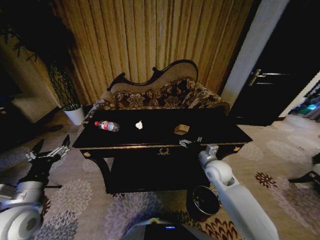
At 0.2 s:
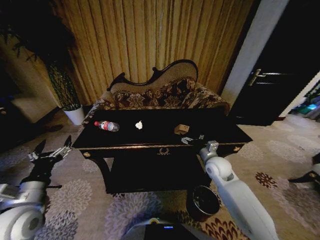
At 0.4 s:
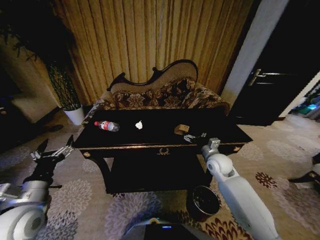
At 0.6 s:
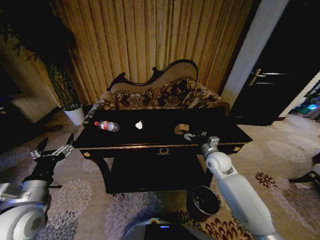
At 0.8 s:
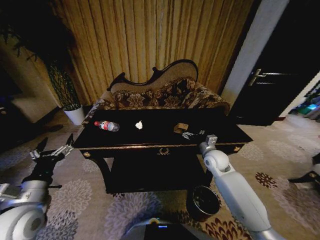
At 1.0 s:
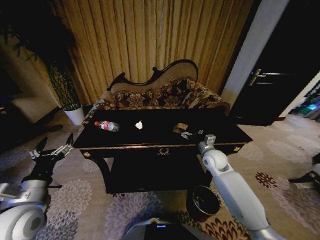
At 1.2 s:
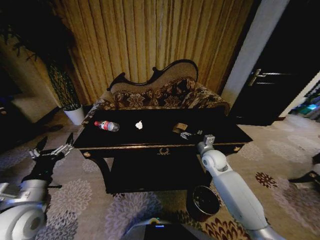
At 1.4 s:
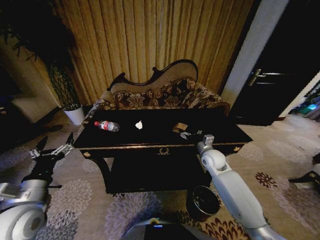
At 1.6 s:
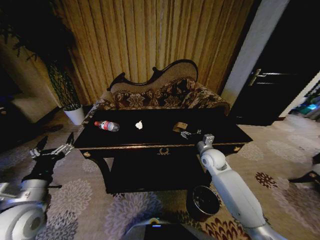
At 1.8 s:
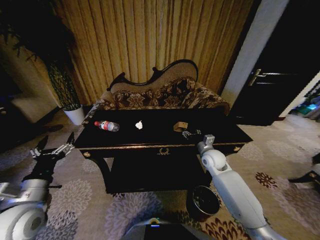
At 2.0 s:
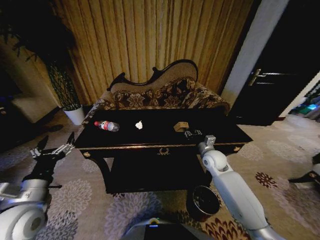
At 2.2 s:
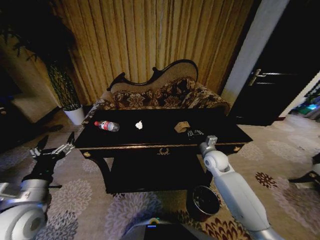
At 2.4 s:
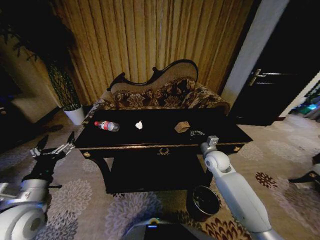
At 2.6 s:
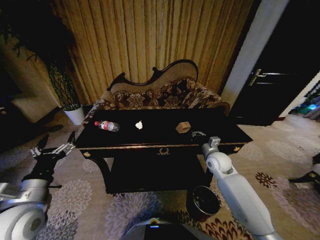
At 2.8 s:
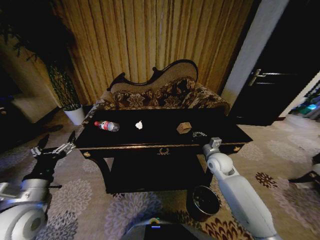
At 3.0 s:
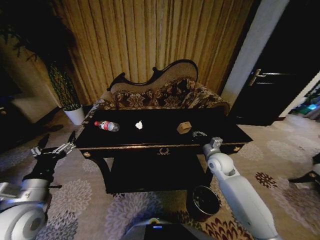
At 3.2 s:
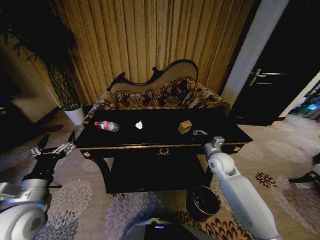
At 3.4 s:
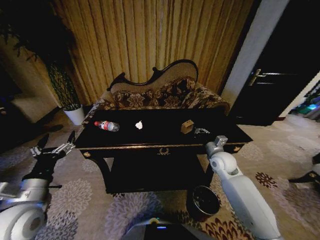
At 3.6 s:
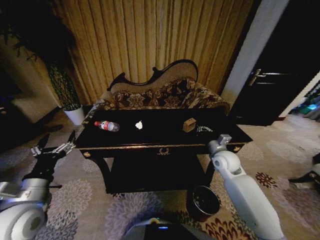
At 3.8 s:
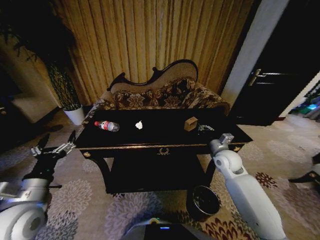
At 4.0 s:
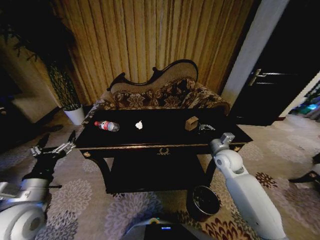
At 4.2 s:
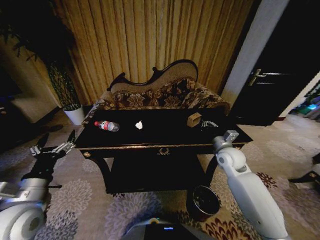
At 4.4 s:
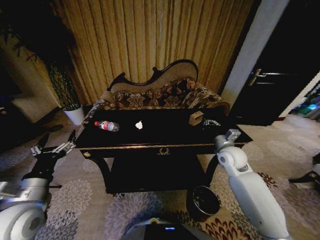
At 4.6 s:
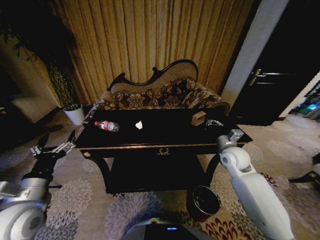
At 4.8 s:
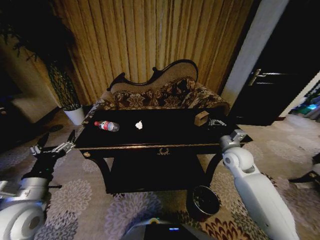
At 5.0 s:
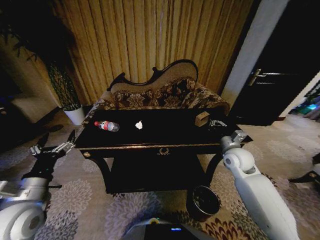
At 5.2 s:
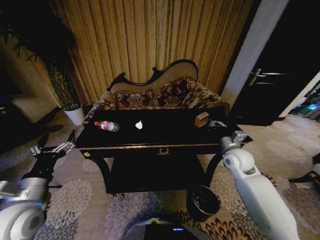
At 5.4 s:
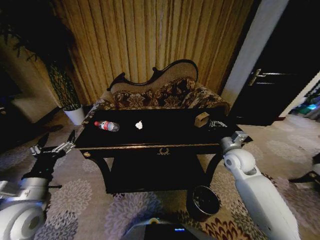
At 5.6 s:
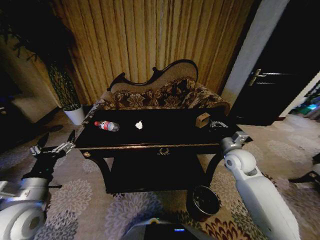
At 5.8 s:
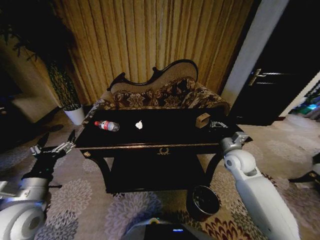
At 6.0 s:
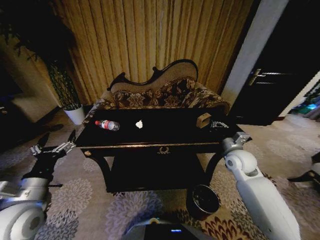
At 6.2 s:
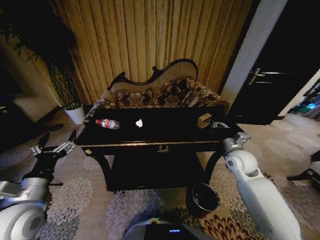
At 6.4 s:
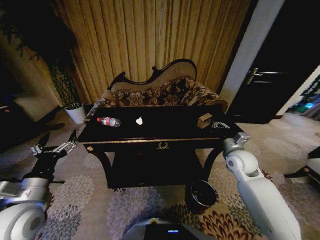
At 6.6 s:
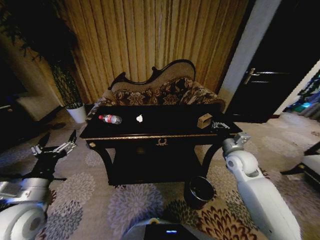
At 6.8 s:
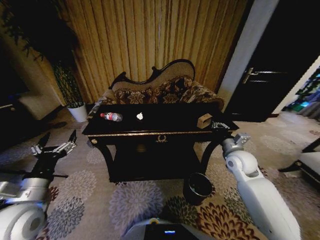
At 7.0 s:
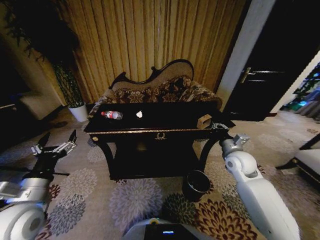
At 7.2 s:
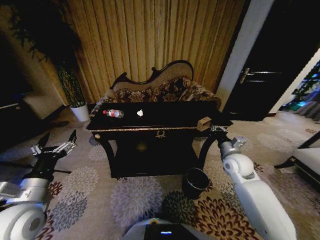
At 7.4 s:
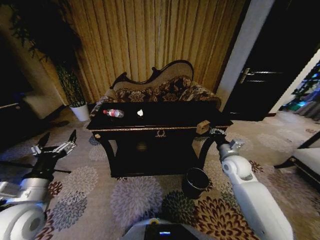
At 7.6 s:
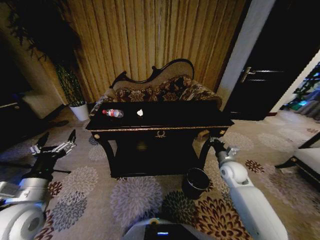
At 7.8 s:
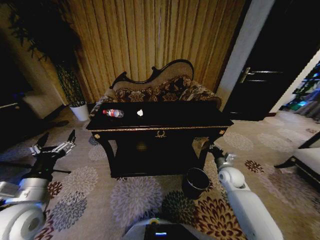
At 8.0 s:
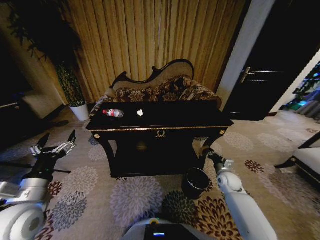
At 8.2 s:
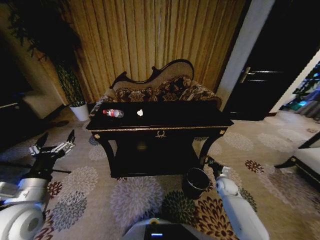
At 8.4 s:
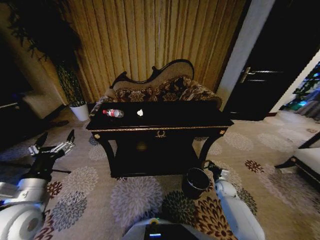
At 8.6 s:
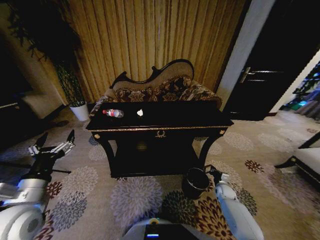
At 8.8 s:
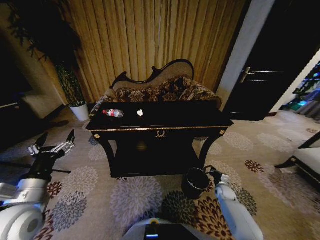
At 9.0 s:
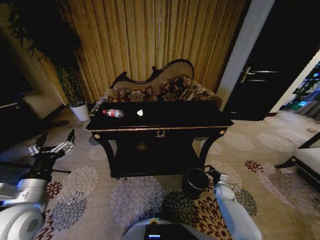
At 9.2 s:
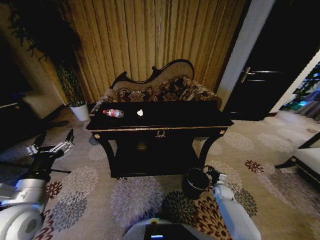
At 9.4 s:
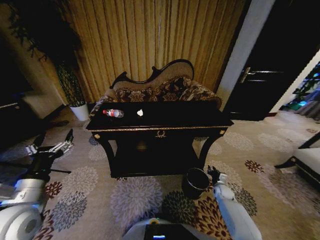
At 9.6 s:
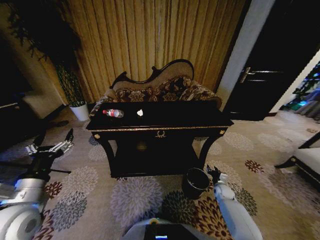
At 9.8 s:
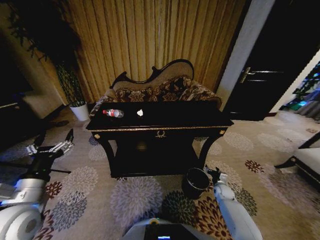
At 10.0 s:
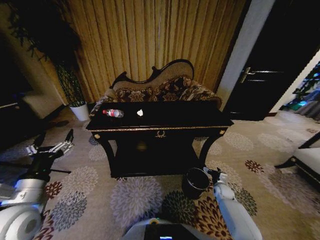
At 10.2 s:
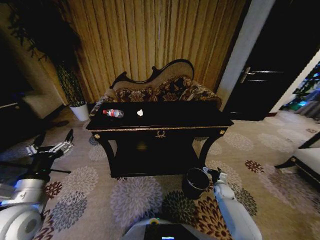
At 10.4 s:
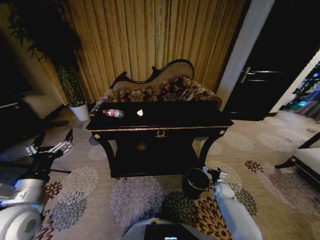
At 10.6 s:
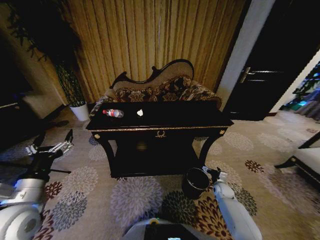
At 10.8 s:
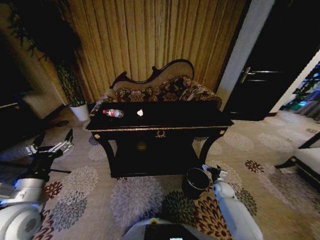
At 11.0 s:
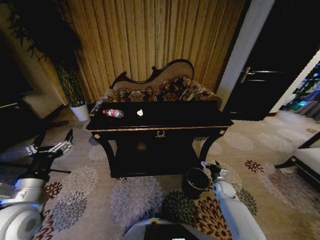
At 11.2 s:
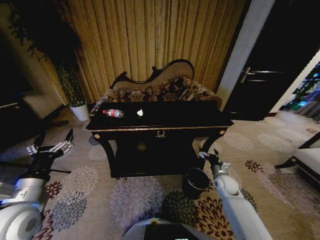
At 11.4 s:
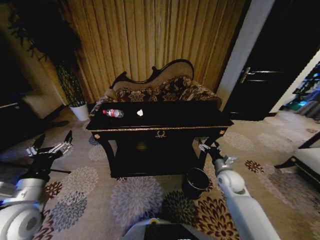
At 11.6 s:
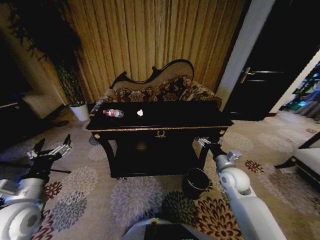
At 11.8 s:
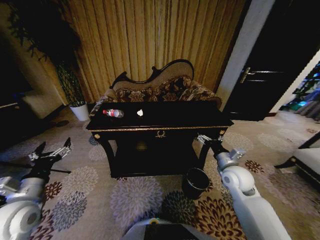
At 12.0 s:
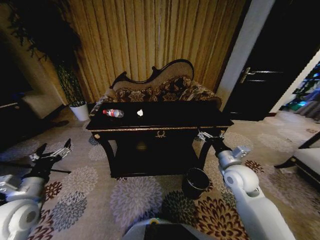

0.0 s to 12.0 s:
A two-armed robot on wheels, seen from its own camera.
Task of the whole recording: Move to the front of the table and place the trash on the table into the trash bin.
0.0 to 1.6 s: The right gripper goes about 5 cm forward.
1.6 to 3.0 s: The right gripper closes its fingers.
3.0 to 4.4 s: The right gripper moves upward, approximately 5 cm.
4.4 to 6.0 s: There are only small adjustments of the grippers.
6.0 to 7.6 s: The right gripper moves downward, some 10 cm.
7.6 to 9.0 s: The right gripper shifts about 20 cm downward.
10.4 to 12.0 s: The right gripper is displaced upward by some 30 cm.

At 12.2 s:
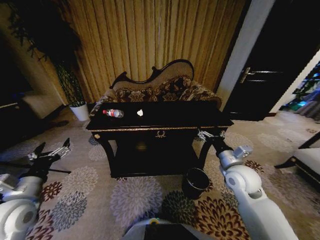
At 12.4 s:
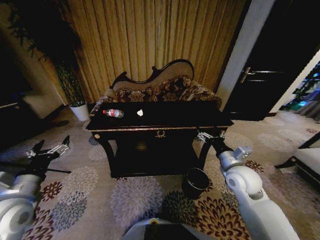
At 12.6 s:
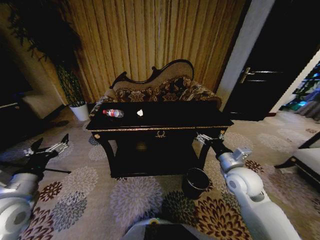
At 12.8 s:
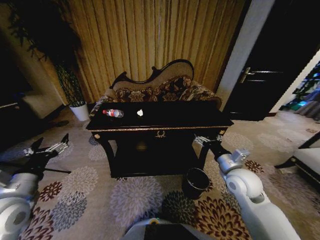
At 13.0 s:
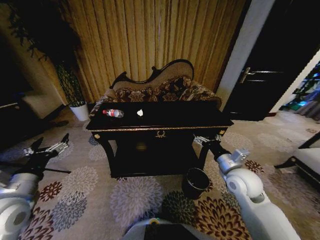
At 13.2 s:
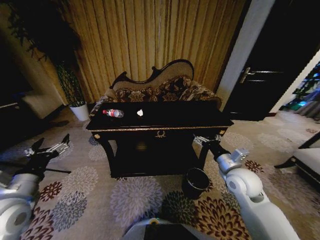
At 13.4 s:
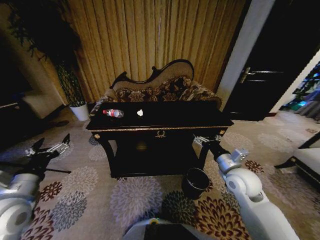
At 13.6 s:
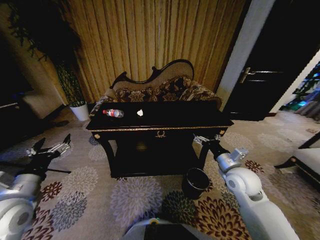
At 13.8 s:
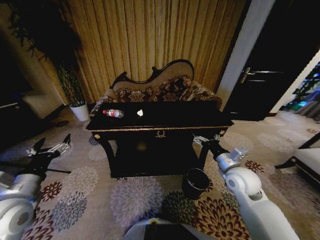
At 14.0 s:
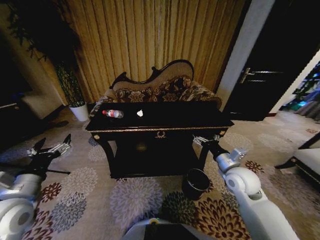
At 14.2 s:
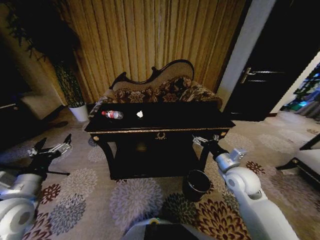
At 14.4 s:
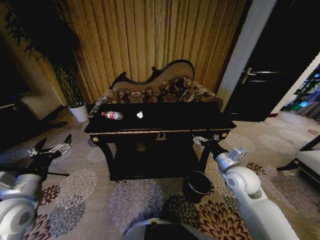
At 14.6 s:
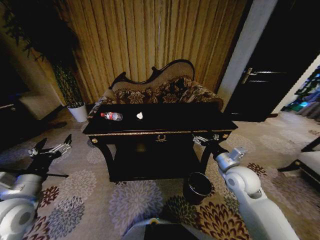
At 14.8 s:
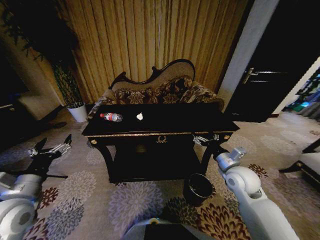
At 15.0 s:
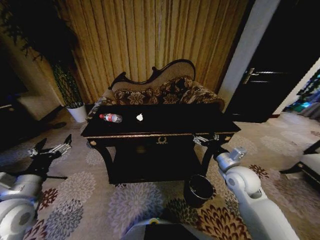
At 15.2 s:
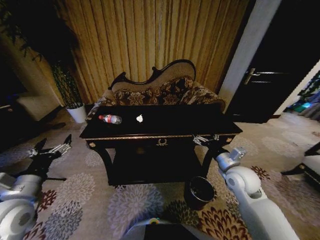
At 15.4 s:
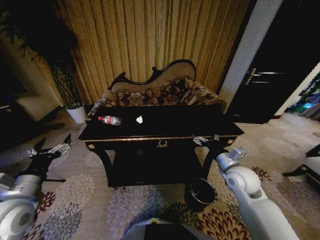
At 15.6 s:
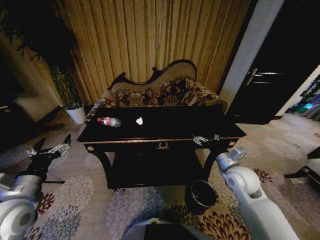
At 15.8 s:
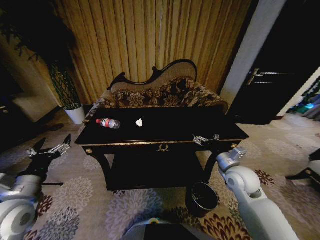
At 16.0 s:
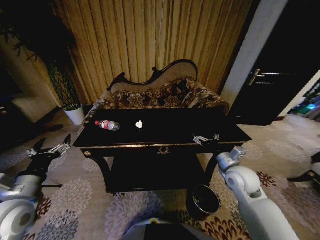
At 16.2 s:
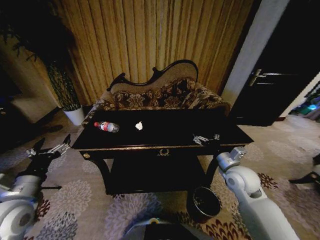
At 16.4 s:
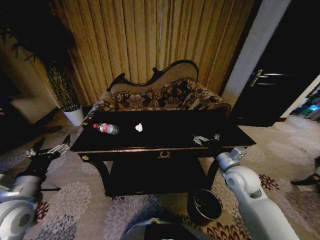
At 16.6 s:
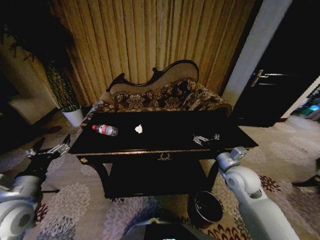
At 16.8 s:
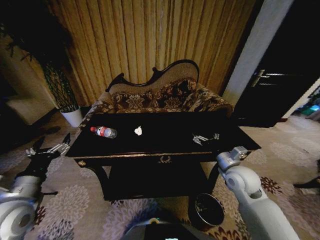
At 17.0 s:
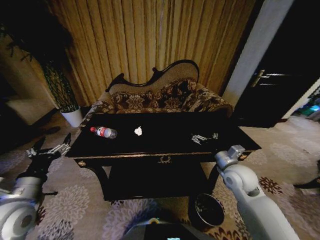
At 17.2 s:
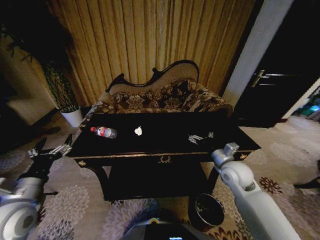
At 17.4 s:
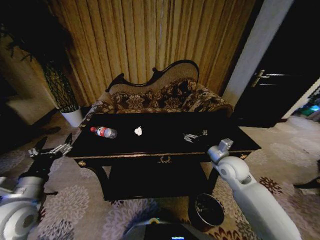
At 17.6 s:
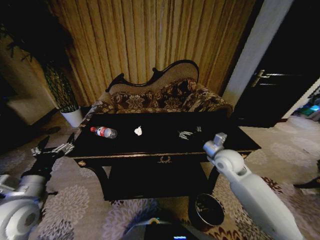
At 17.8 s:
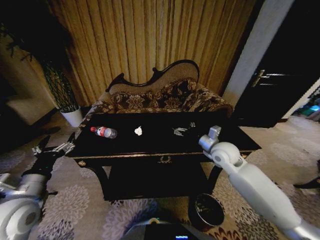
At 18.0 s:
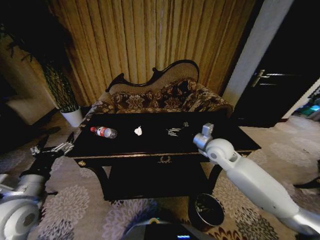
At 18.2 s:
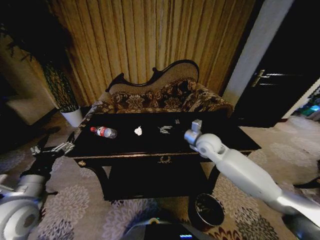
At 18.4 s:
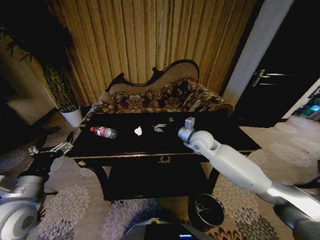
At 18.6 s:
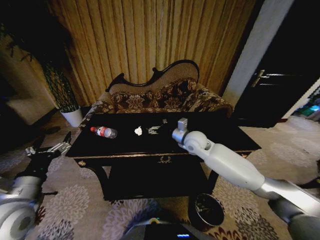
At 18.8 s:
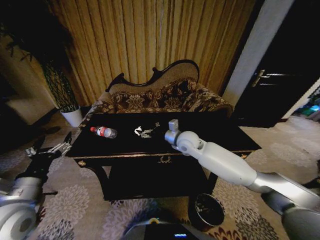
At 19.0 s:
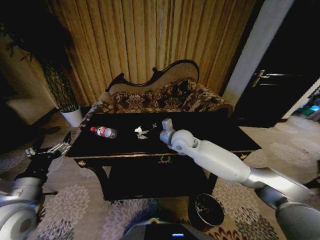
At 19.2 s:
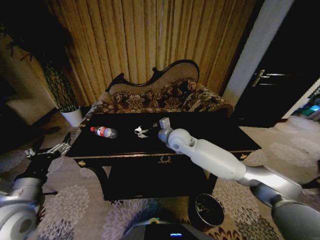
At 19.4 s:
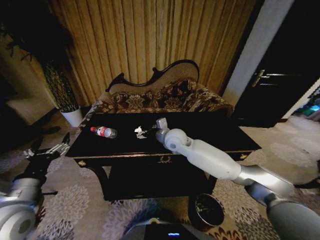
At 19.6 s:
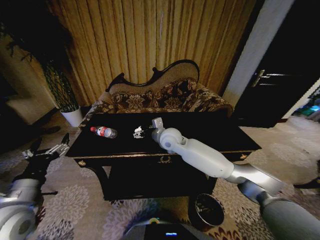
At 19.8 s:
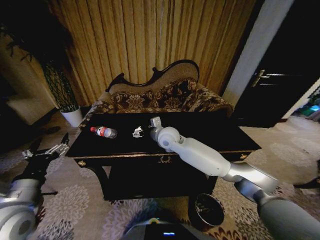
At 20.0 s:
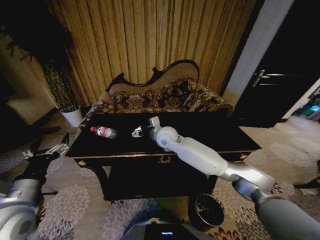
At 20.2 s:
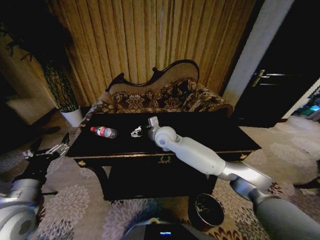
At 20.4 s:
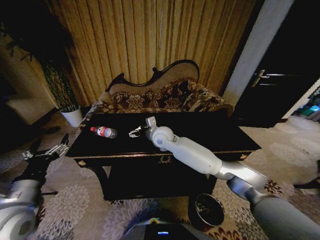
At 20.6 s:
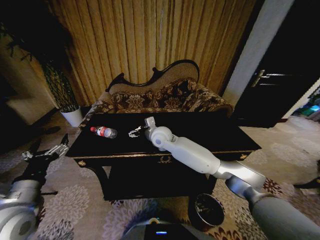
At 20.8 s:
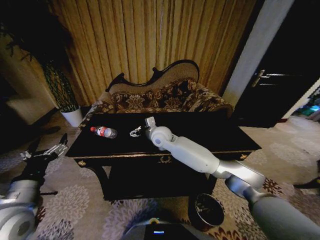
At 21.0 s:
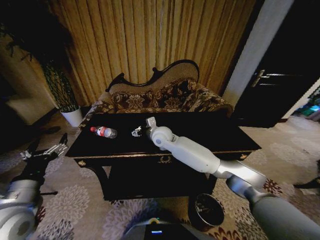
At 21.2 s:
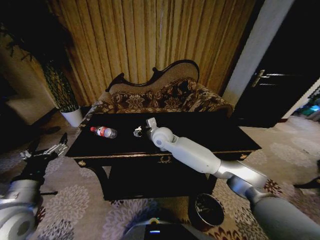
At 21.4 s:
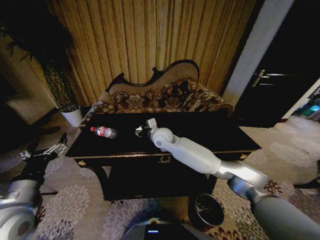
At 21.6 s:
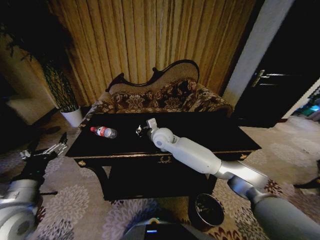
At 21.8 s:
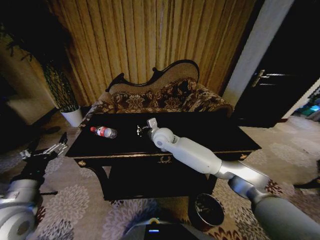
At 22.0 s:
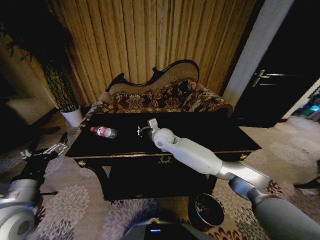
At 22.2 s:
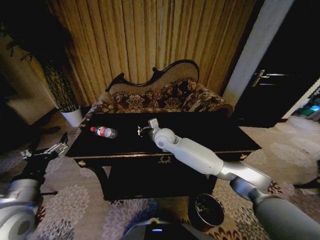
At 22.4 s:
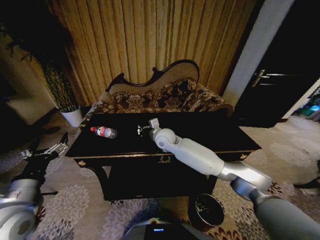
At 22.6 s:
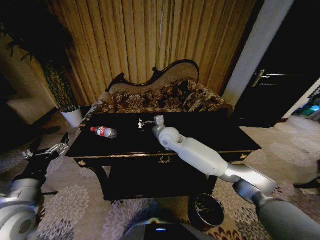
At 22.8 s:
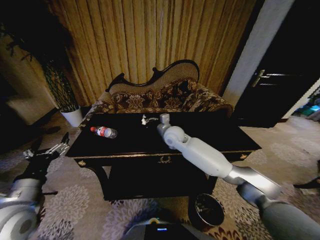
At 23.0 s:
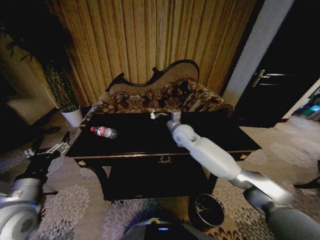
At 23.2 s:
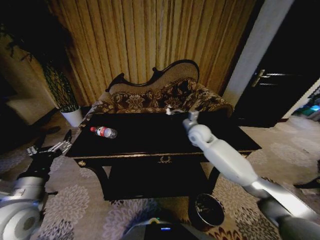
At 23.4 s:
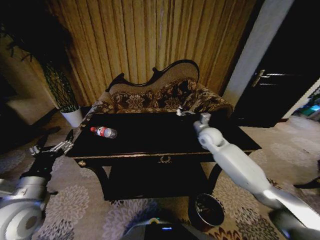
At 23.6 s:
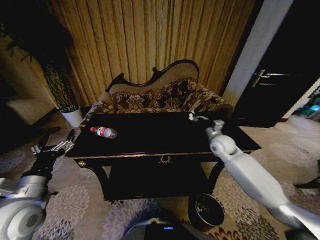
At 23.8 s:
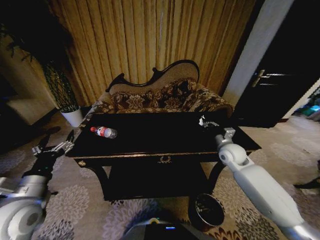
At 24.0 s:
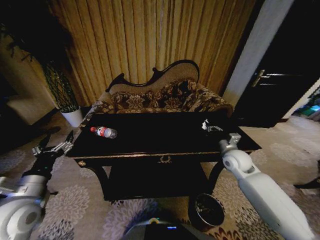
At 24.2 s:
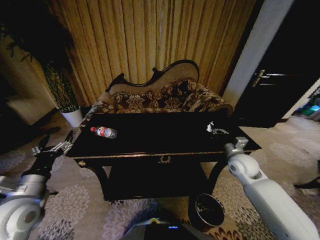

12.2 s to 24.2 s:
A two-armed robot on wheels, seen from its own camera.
Task of the whole recording: Move to the front of the table and place the trash on the table into the trash bin.
12.2 to 13.8 s: The grippers make only small movements.
13.8 to 15.2 s: Neither gripper changes place.
16.6 to 18.2 s: The right gripper goes some 15 cm forward and to the left.
18.2 to 19.8 s: The right gripper shifts about 15 cm to the left.
19.8 to 21.2 s: The grippers move only a little.
21.2 to 22.6 s: The right gripper closes.
22.6 to 24.2 s: The right gripper moves to the right, roughly 30 cm.
